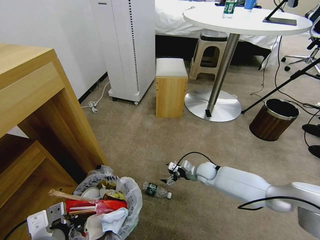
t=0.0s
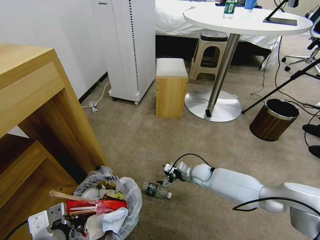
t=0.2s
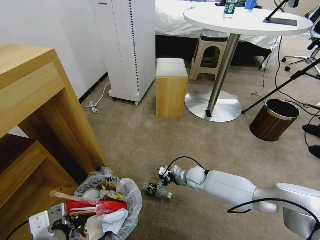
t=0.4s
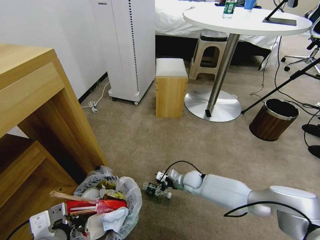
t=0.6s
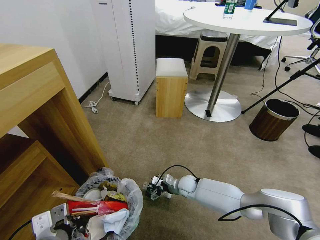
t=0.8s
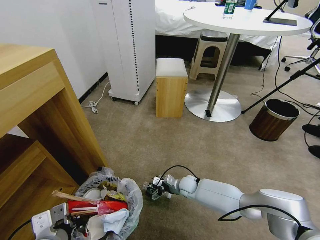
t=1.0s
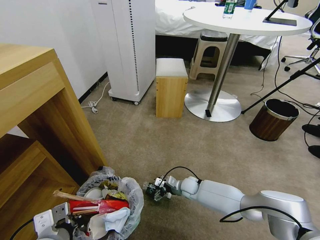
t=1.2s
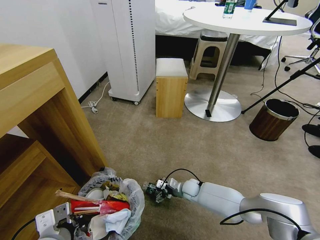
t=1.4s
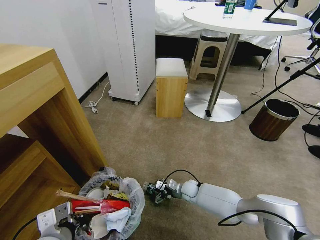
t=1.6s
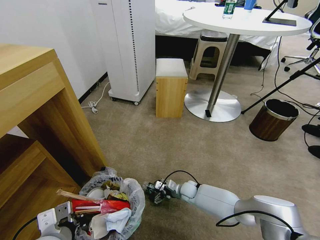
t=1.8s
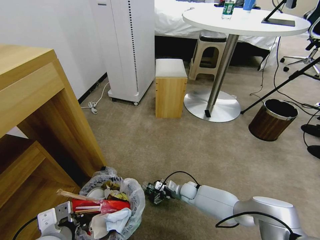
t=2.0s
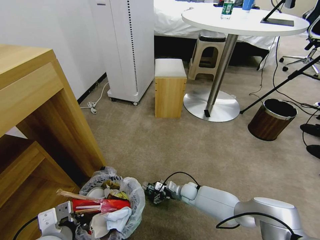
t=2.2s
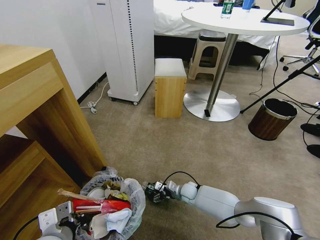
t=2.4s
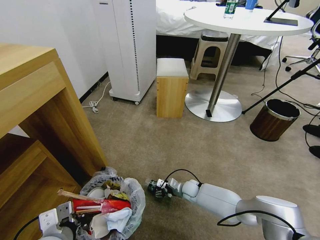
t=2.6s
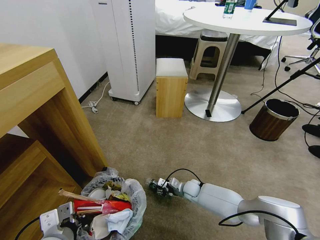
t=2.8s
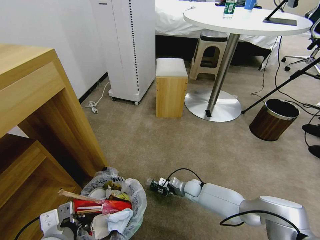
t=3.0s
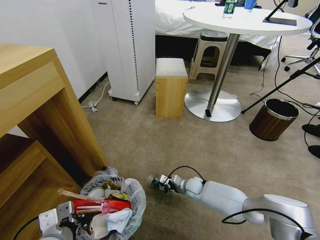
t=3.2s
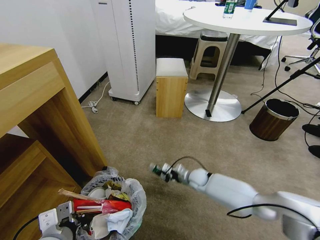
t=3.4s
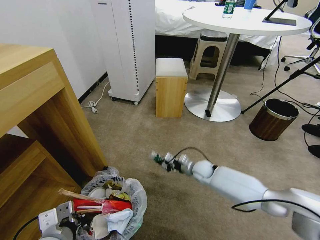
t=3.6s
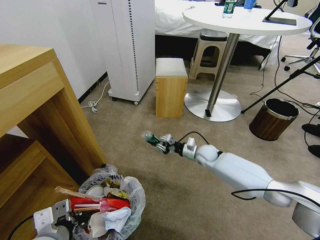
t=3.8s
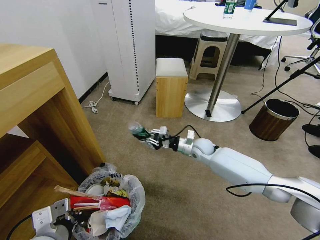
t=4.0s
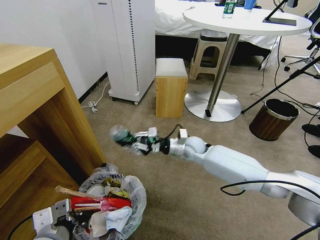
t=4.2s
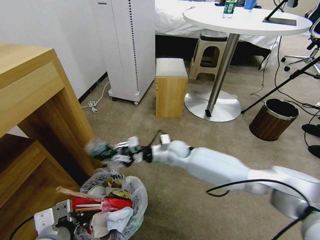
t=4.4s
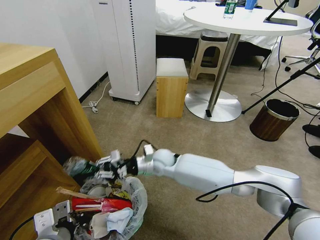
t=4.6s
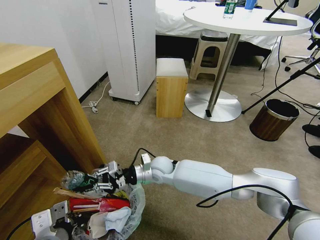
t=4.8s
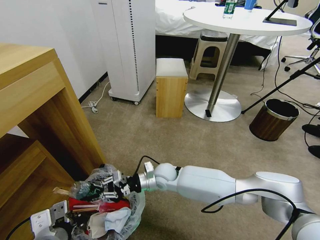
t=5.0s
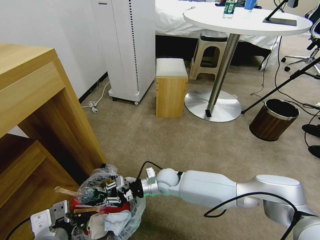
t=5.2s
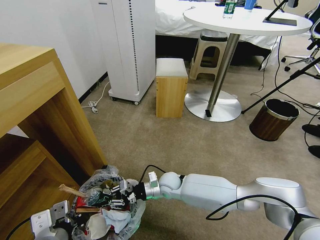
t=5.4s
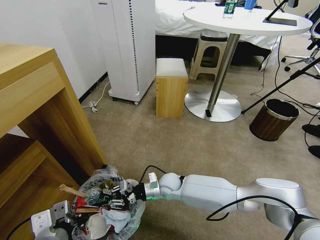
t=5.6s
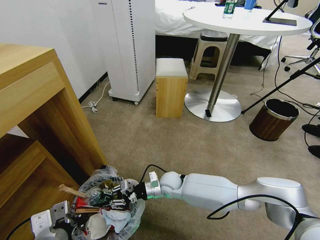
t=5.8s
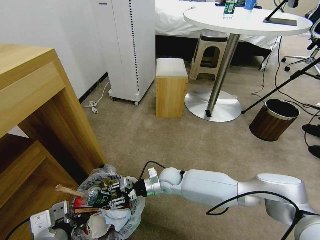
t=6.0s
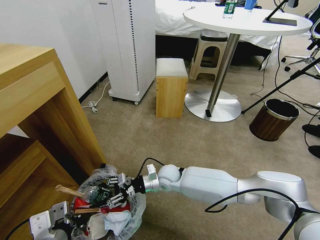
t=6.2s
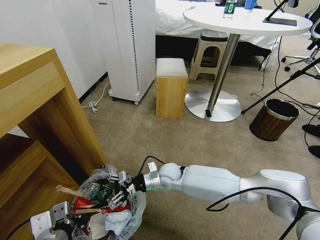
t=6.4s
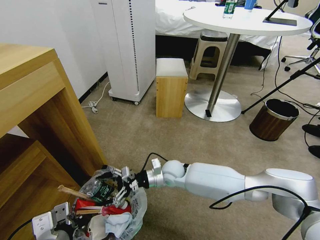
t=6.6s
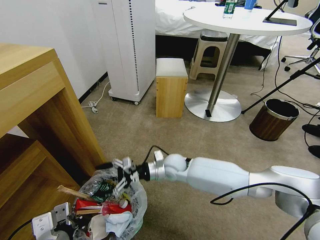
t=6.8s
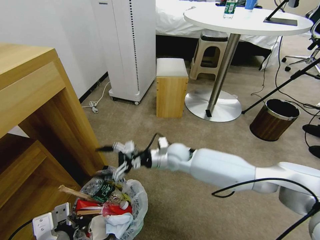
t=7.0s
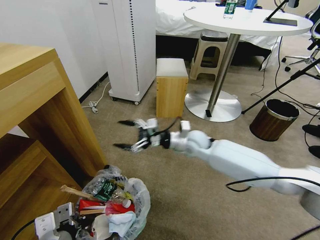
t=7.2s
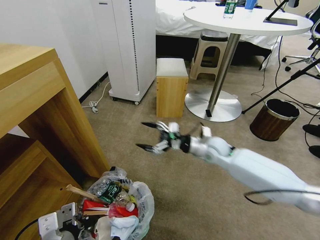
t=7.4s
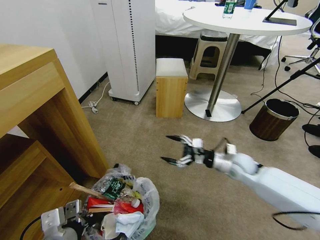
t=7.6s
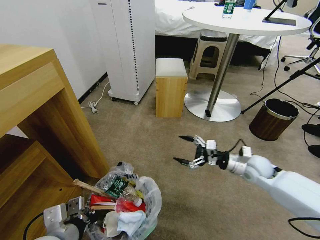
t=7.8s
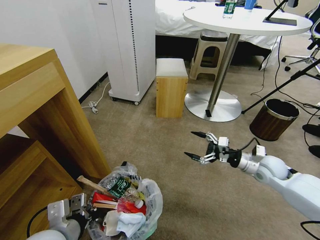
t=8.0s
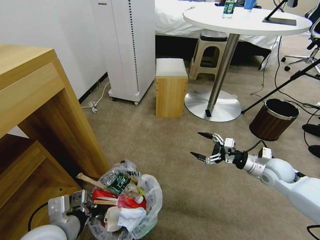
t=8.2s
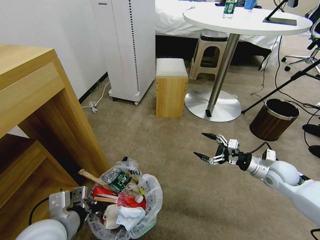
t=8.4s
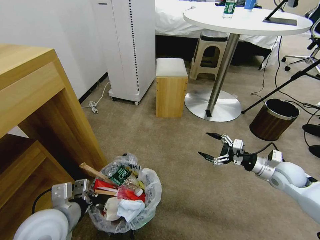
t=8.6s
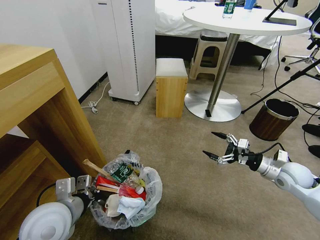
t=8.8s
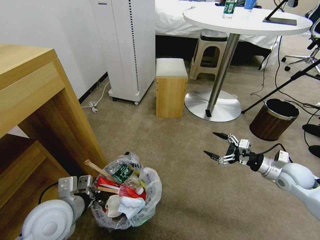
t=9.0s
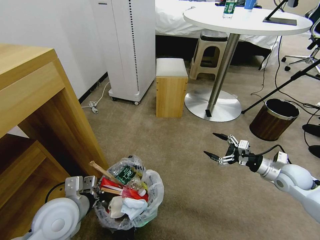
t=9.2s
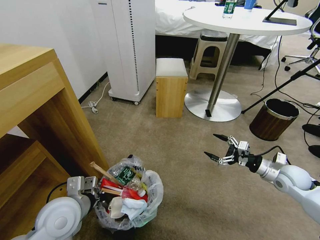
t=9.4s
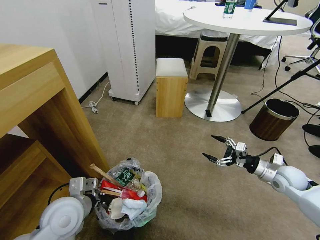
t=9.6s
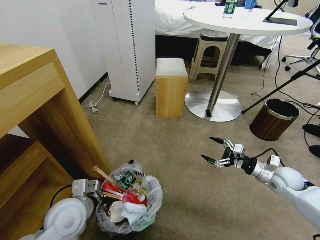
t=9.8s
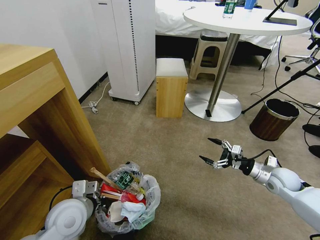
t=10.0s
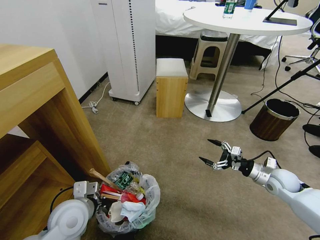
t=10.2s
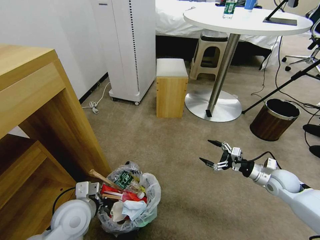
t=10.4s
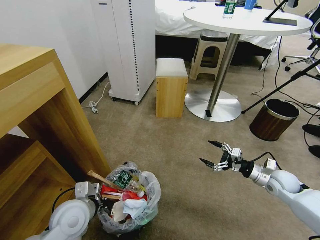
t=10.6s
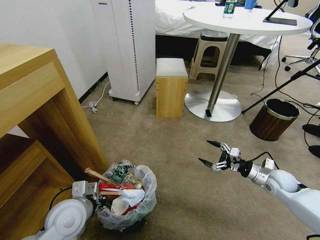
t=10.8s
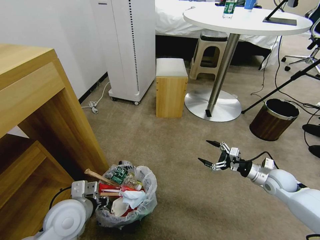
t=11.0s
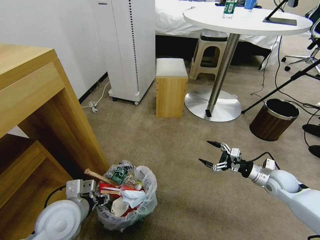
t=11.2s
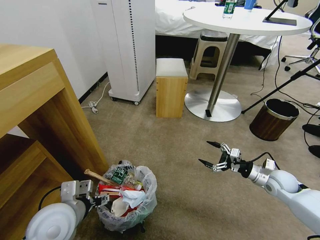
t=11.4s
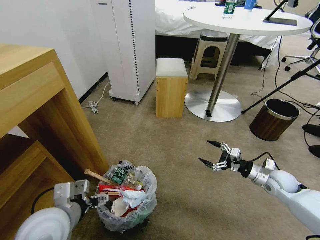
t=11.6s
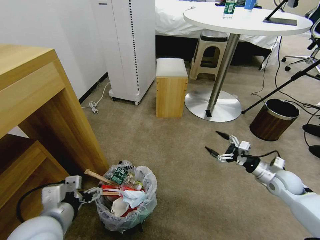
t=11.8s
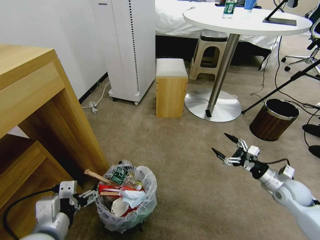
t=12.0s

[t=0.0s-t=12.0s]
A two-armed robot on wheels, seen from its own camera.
Task of the whole recording: Pick up the trash bin and place the garbage on the floor into it.
t=0.0s to t=1.6s: The right gripper moves downward and to the left, about 10 cm.
t=1.6s to t=3.0s: The right gripper closes.
t=3.0s to t=4.4s: The right gripper is displaced upward and to the left by roughly 25 cm.
t=4.4s to t=6.0s: The right gripper is displaced downward and backward by roughly 10 cm.
t=6.0s to t=7.6s: The right gripper shifts approximately 25 cm to the right and upward, and opens its fingers.
t=7.6s to t=9.0s: The right gripper moves to the right, about 20 cm; the left gripper moves forward, approximately 10 cm.
t=9.0s to t=10.4s: Both grippers travel together downward, approximately 5 cm.
t=10.4s to t=12.0s: The left gripper moves backward and upward, about 10 cm, and opens.

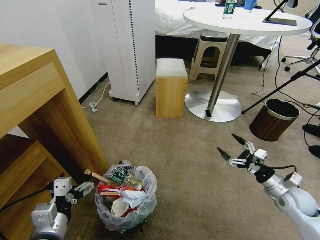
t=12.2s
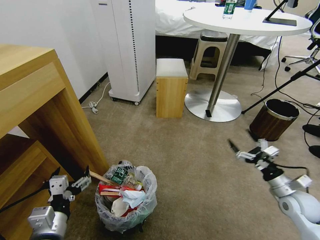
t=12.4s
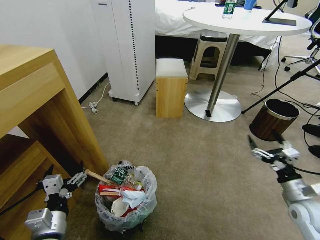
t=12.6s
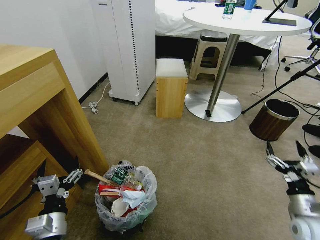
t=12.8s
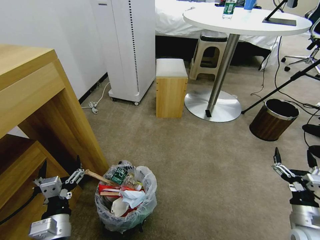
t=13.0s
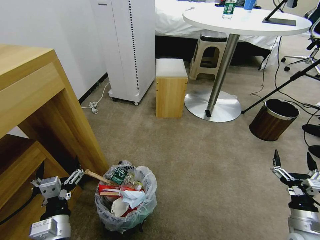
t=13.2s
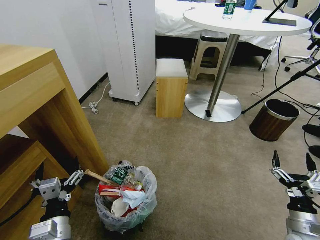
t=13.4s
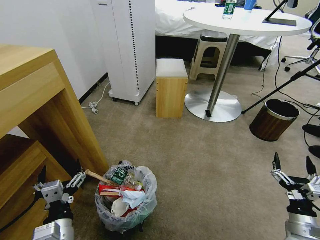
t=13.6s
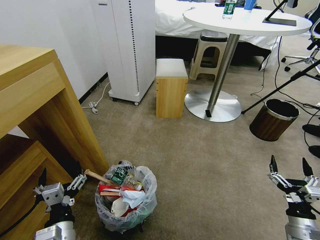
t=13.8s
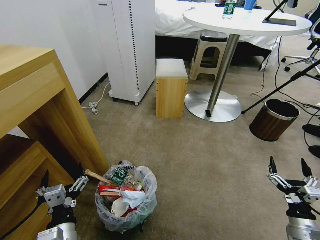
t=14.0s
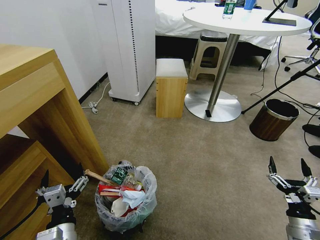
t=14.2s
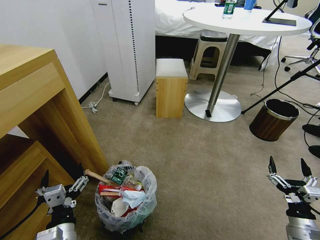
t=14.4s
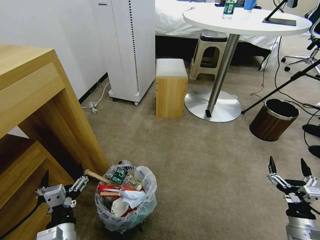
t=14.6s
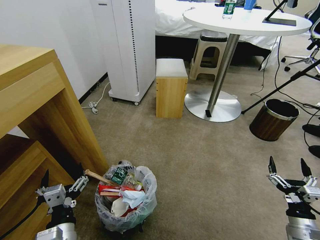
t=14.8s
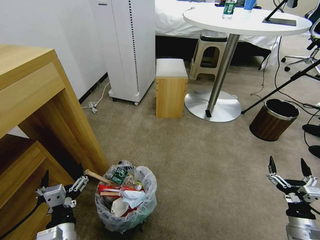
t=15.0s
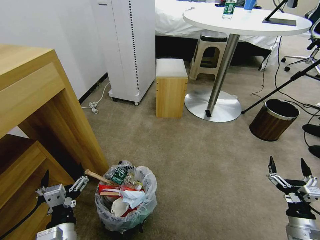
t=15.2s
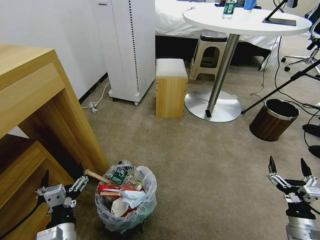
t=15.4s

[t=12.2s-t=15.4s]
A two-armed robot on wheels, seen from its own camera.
Task of the whole recording: Pick up the trash bin and place the garbage on the floor into it.
t=12.2s to t=13.8s: The left gripper travels downward by about 5 cm. Meanwhile the right gripper moves backward, about 15 cm.
t=13.8s to t=15.4s: Neither gripper changes place.
